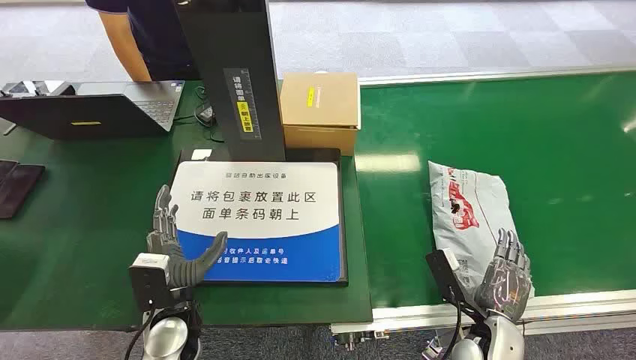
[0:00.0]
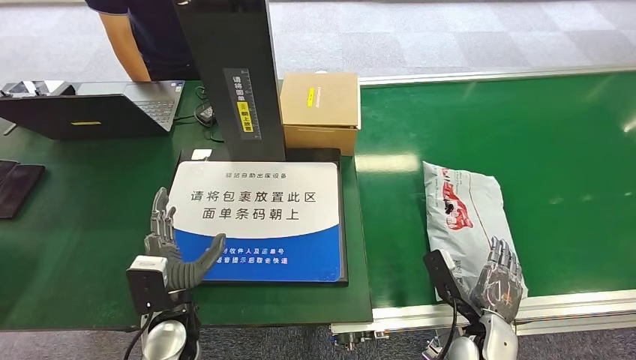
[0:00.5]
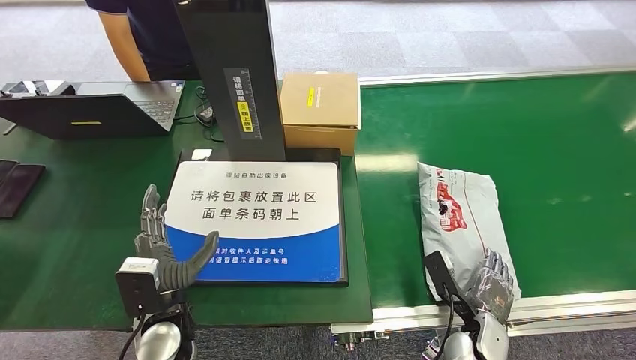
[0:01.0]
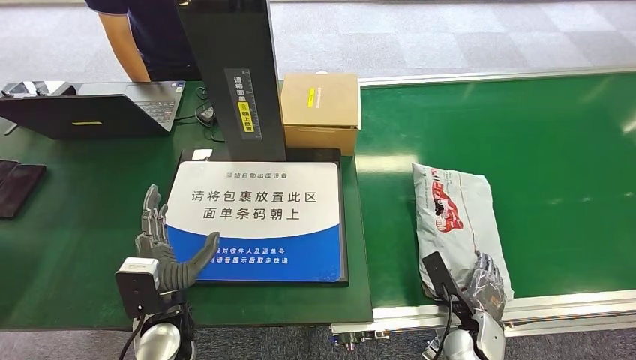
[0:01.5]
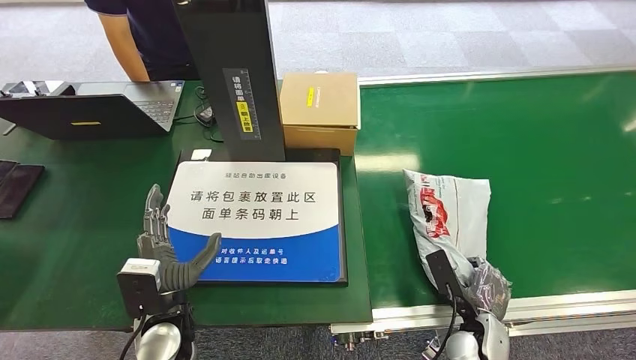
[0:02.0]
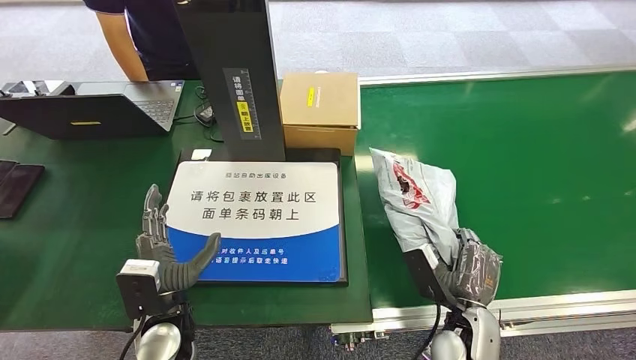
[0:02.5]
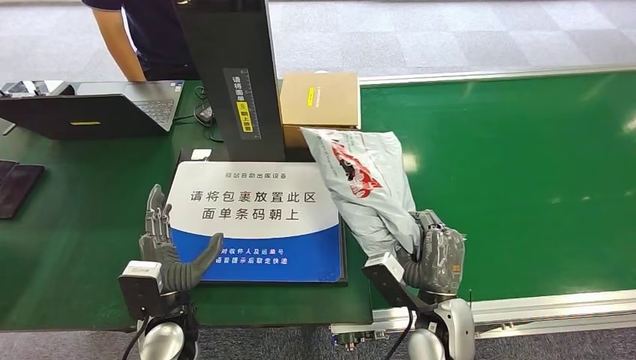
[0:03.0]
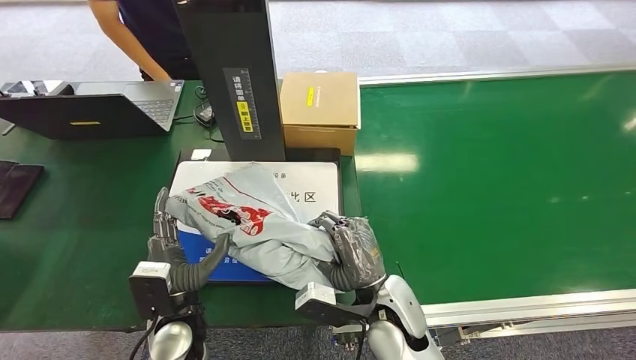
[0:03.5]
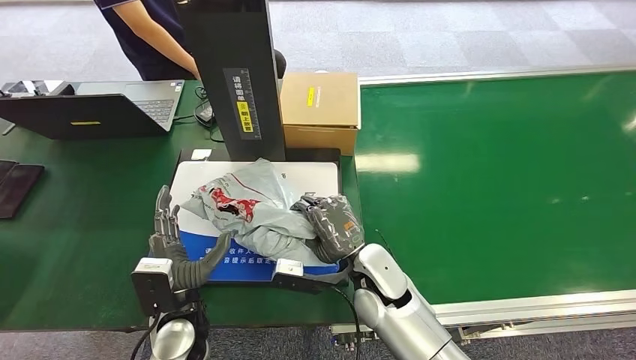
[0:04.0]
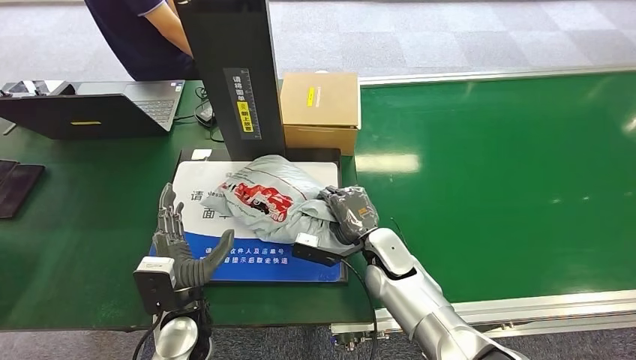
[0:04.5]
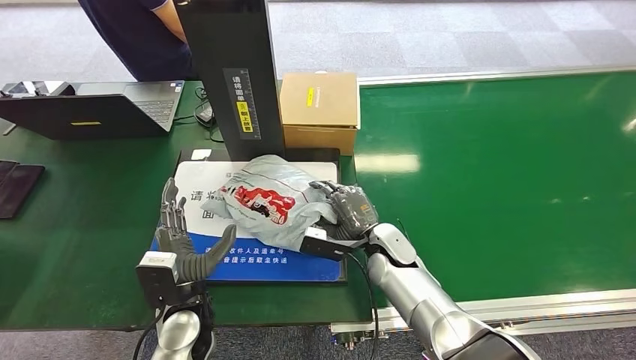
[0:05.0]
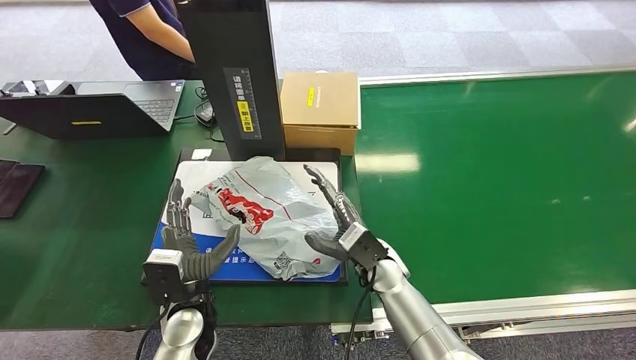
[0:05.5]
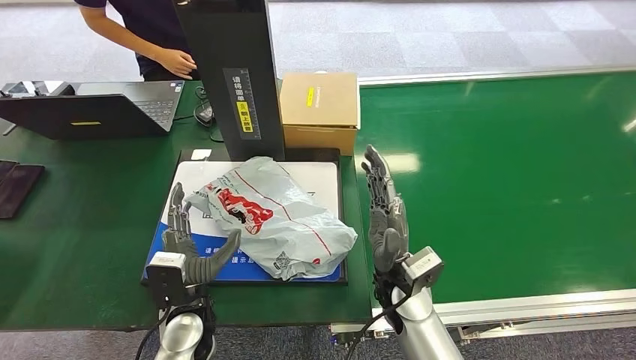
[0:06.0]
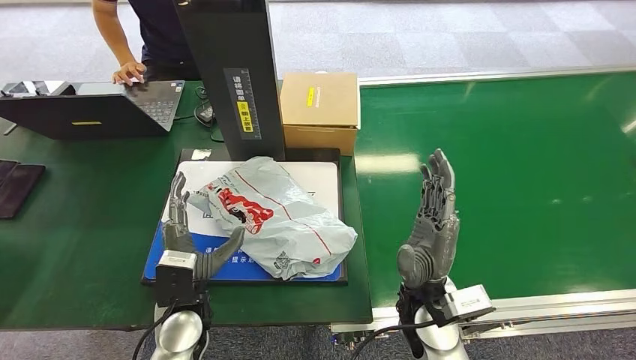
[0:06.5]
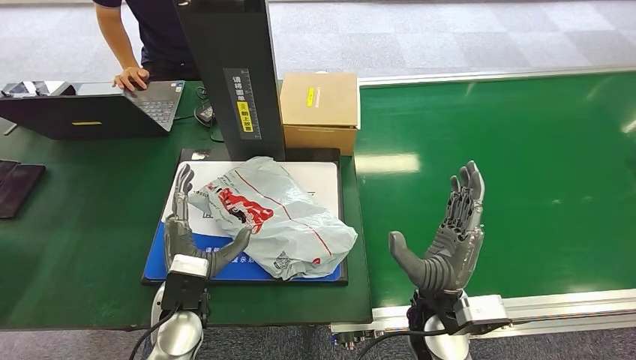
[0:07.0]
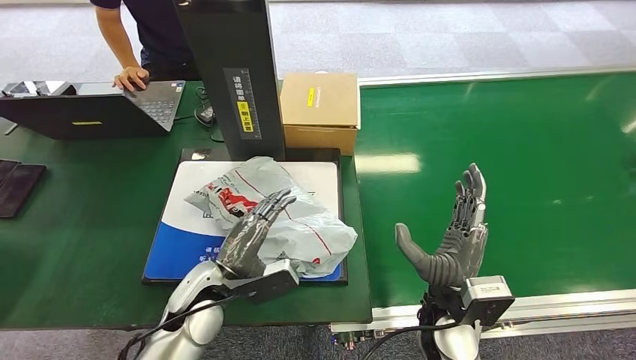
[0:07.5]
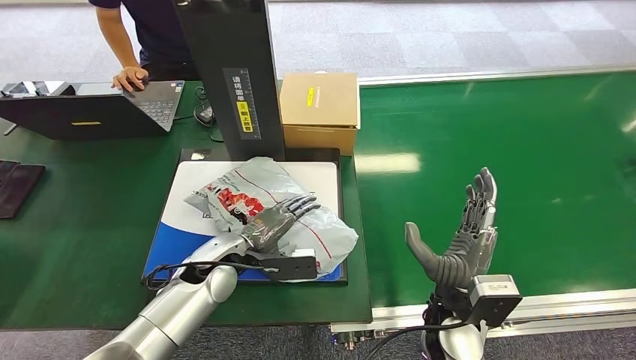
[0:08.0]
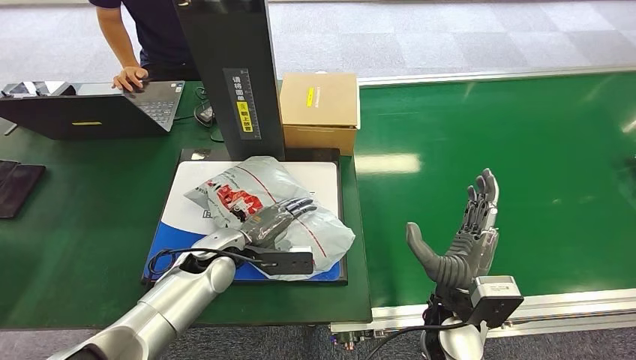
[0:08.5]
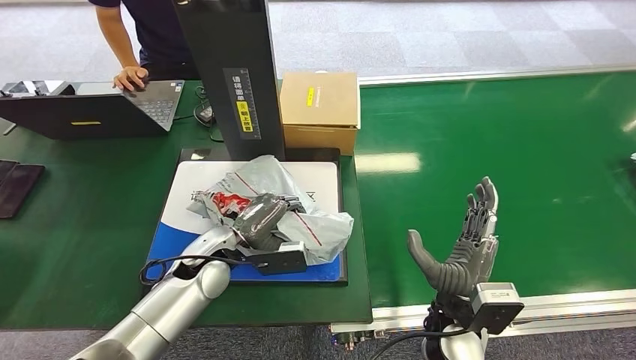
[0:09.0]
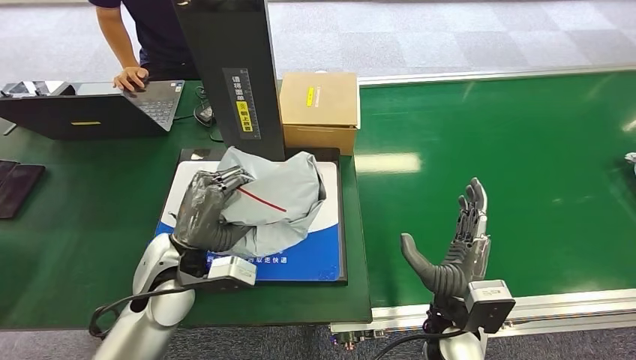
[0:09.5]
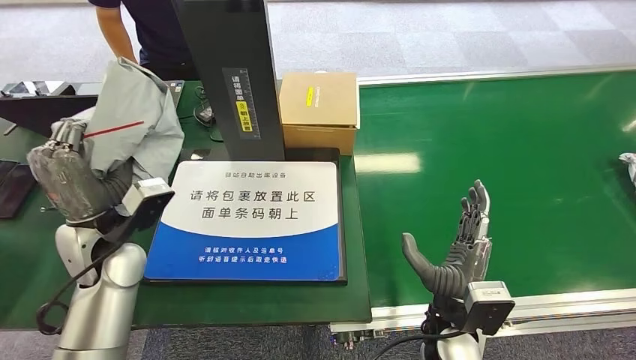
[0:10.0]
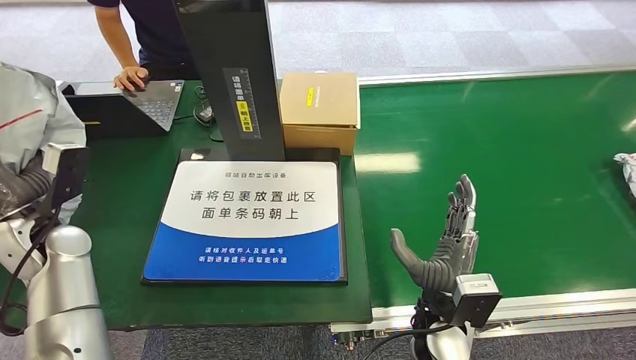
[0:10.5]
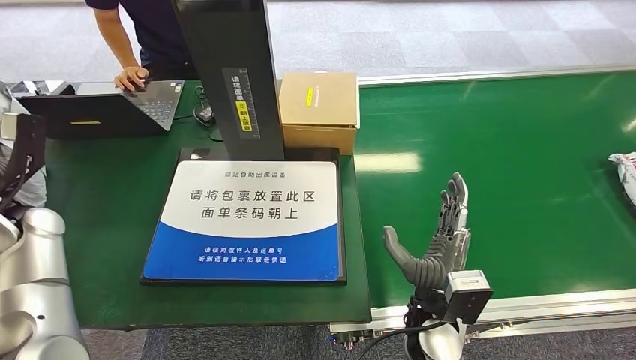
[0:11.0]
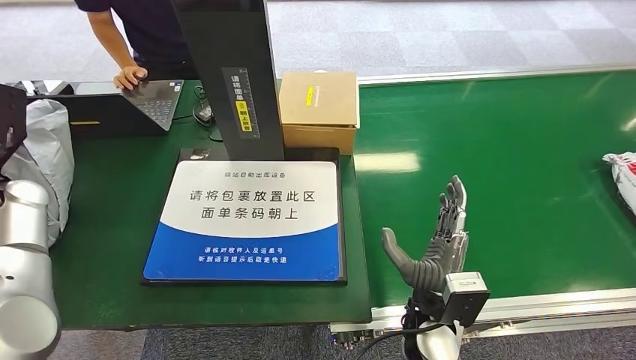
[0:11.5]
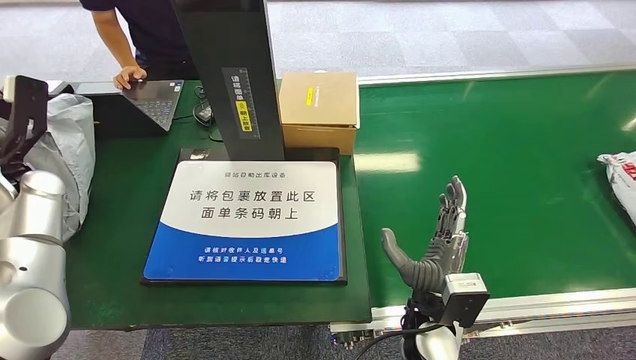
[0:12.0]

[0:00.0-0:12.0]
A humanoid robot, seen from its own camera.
Step, 0:00.0 to 0:02.5: Pick up the package from the conveyor belt.
Step, 0:03.0 to 0:06.5: Place the package onto the inbound machine.
Step, 0:07.0 to 0:09.5: Pick up the package from the inbound machine.
0:04.0 to 0:06.0: The right hand reaches approximately 5 cm forward, then returns.
0:06.0 to 0:08.0: The right hand heads to the right and backward, covering some 10 cm; the left hand shifts about 10 cm forward.

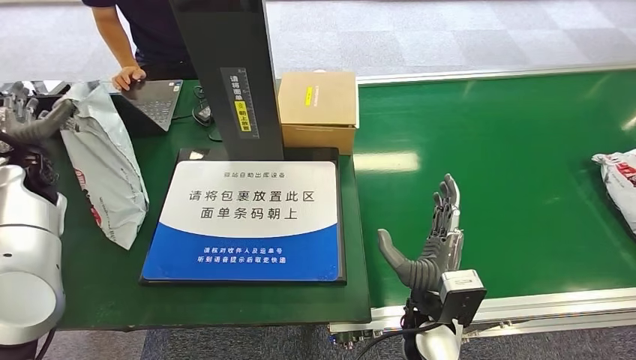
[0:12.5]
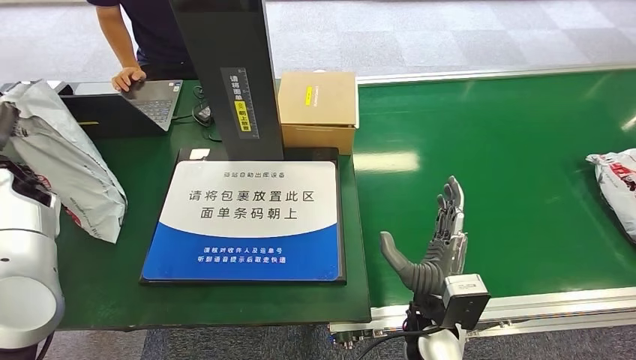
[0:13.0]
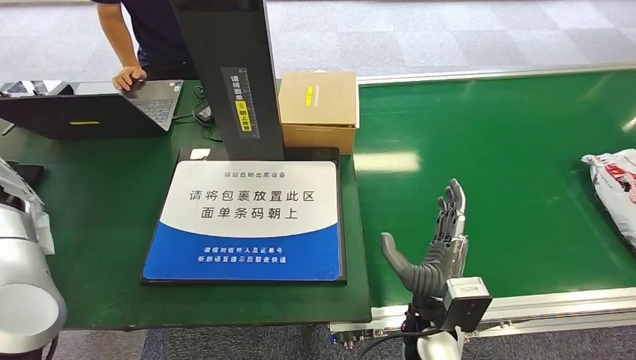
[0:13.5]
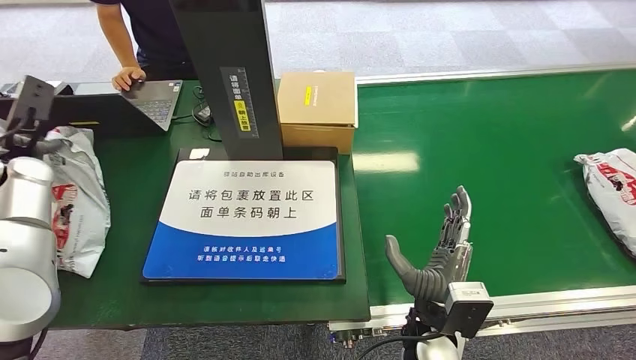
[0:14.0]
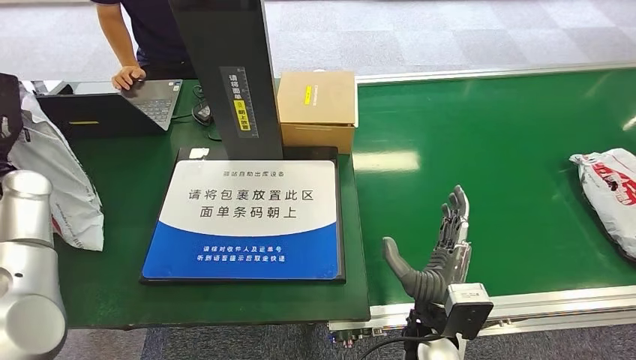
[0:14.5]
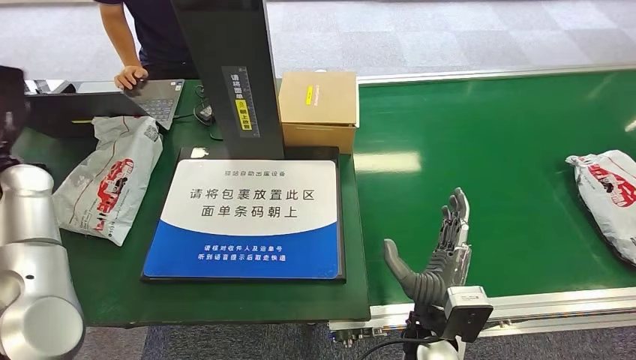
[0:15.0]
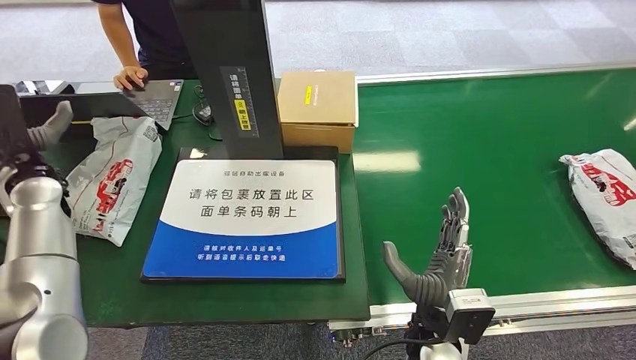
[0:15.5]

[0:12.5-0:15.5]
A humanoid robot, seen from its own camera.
Step, 0:12.5 to 0:15.5: Place the package into the parcel locker.
0:14.0 to 0:15.5: The left hand moves to the right, approximately 5 cm.

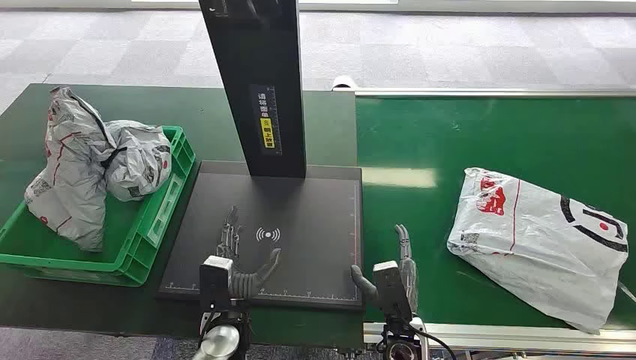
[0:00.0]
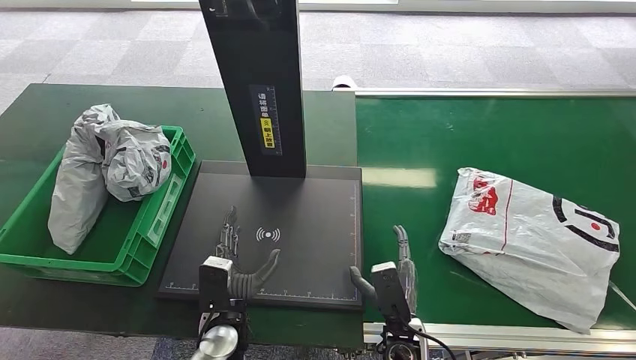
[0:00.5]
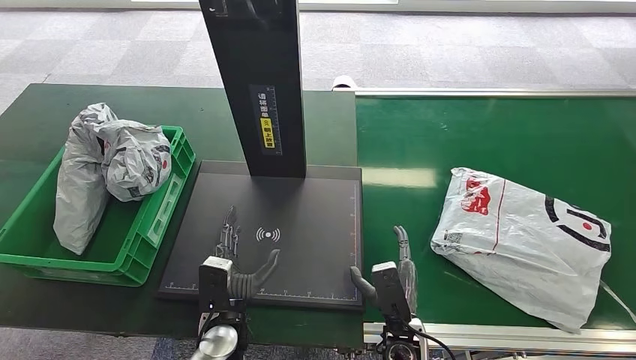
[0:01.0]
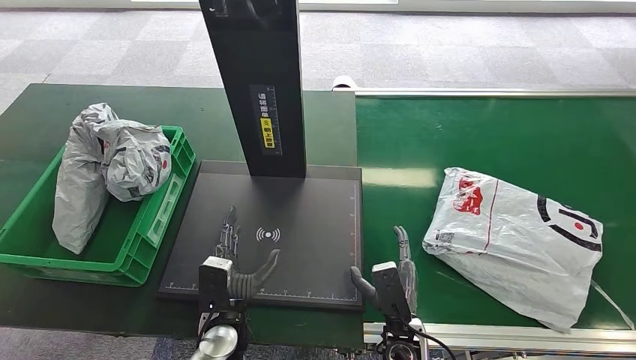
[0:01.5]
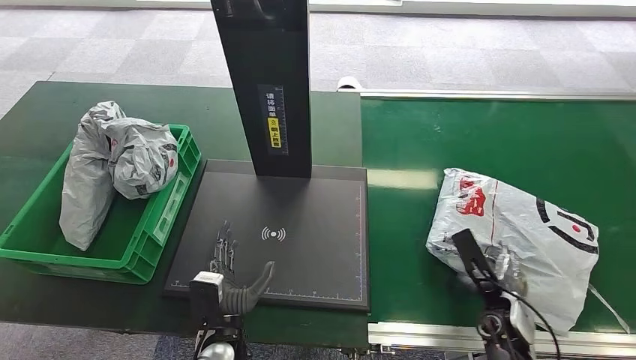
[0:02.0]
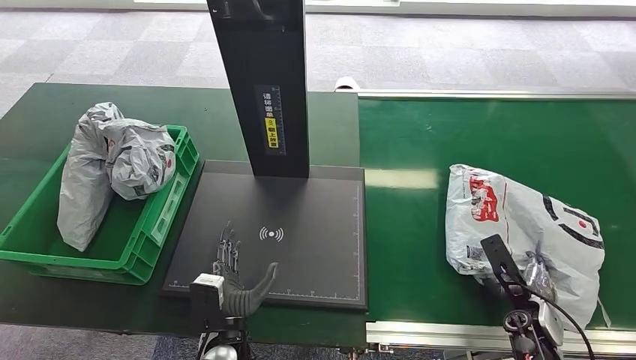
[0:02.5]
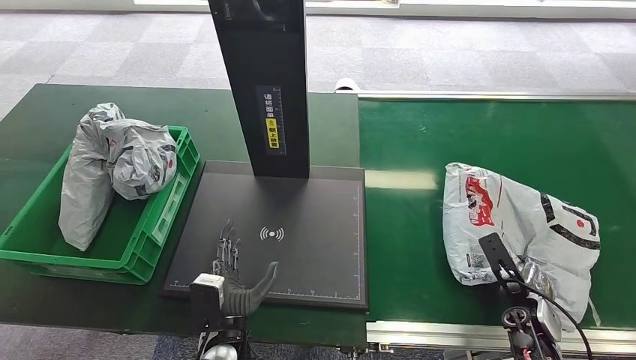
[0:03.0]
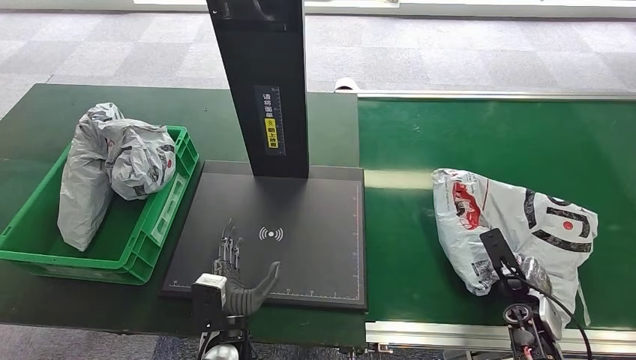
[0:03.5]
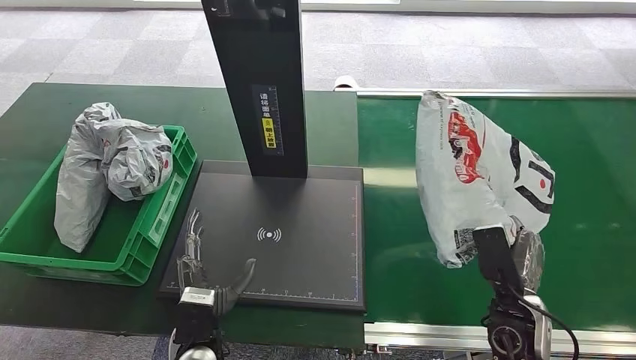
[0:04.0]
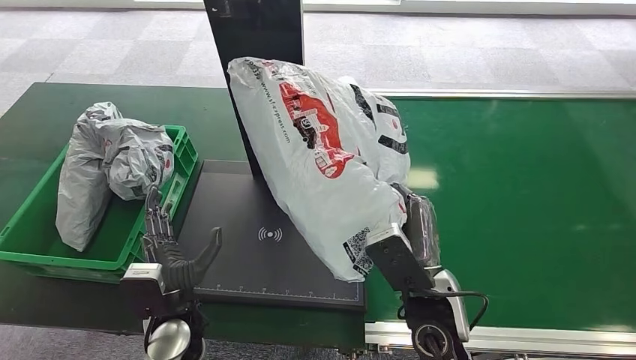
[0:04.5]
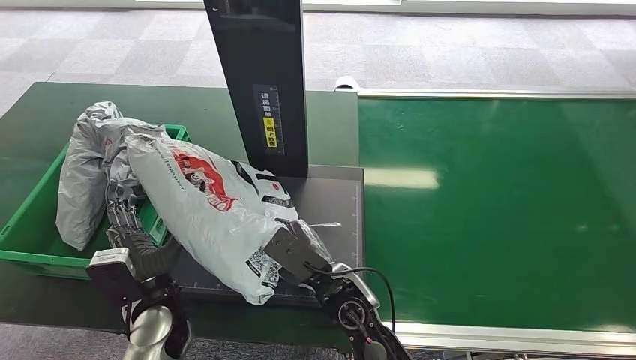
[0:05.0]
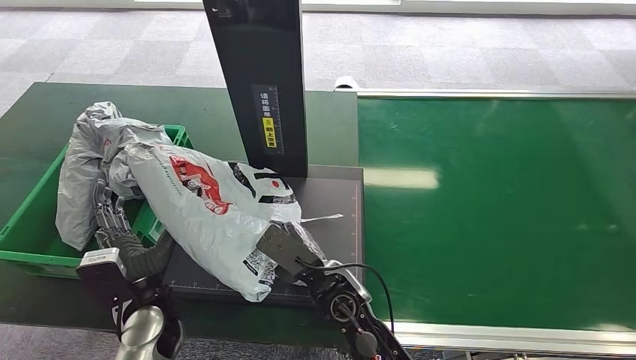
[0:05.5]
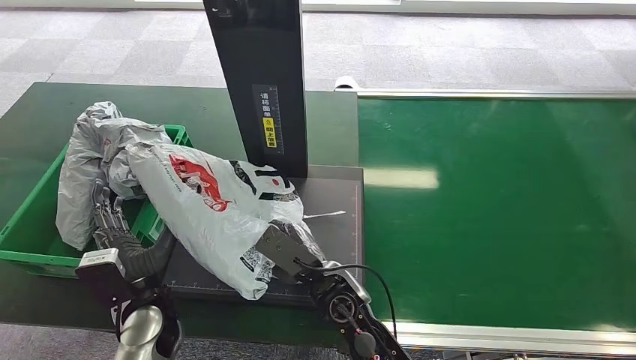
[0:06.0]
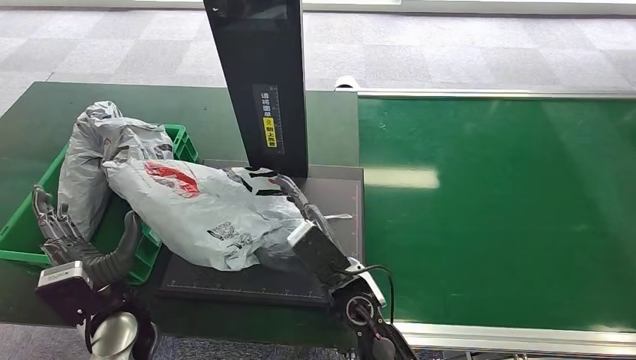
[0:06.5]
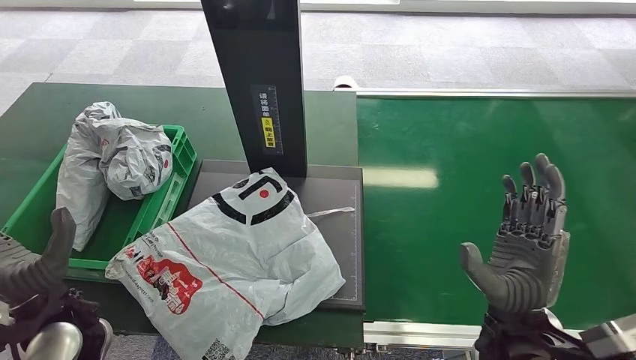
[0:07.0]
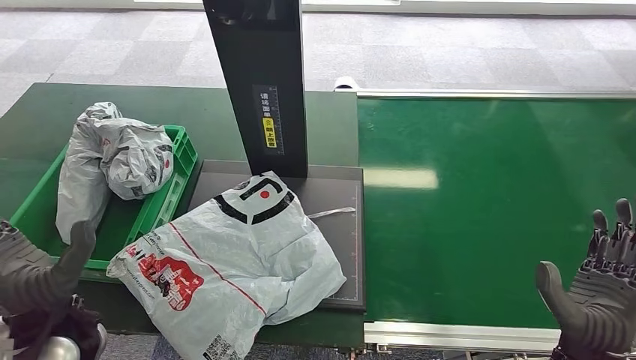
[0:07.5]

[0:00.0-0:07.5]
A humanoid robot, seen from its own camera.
Step, 0:00.0 to 0:04.0: Pick up the package from the conveyor belt.
Step, 0:05.0 to 0:06.5: Place the package onto the inbound machine.
0:05.5 to 0:07.5: The left hand heads upward and to the left, covering about 10 cm. The right hand moves to the right, about 25 cm.
